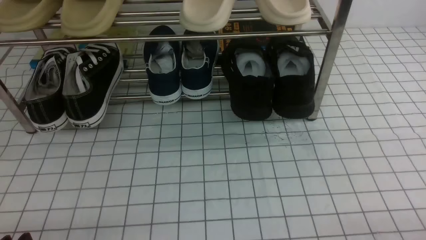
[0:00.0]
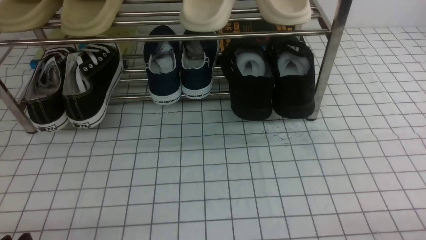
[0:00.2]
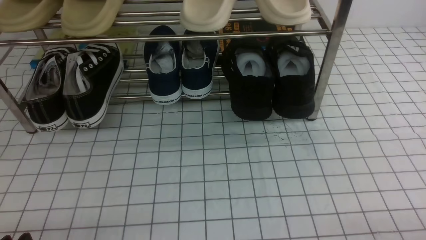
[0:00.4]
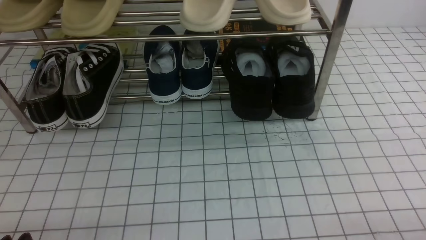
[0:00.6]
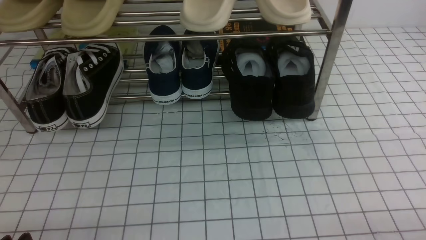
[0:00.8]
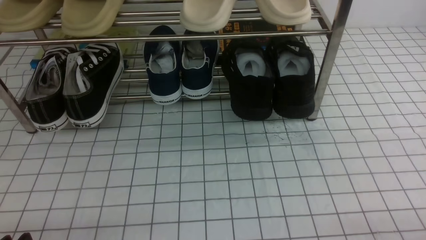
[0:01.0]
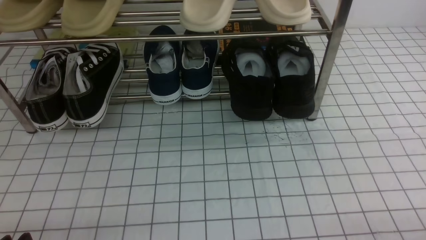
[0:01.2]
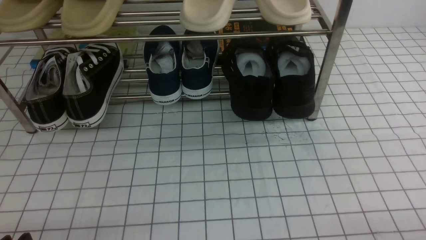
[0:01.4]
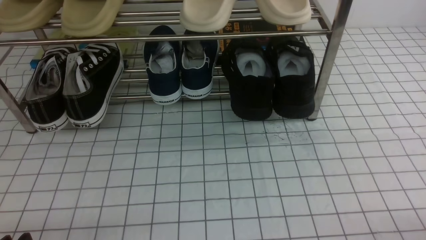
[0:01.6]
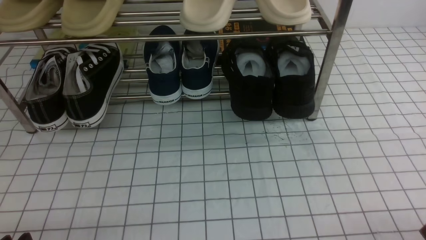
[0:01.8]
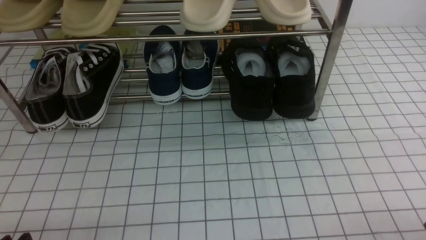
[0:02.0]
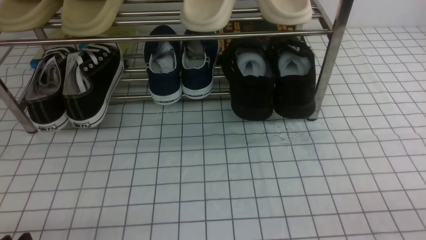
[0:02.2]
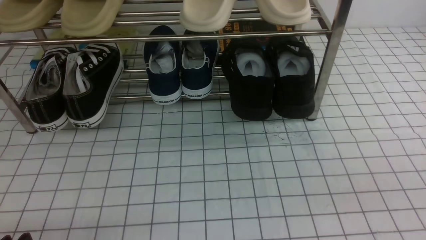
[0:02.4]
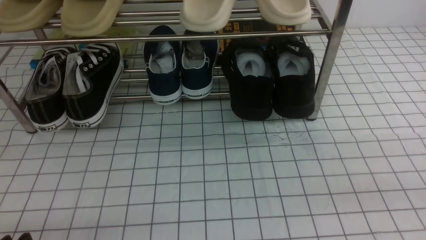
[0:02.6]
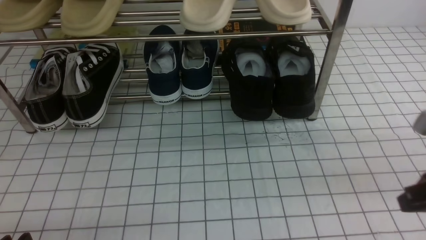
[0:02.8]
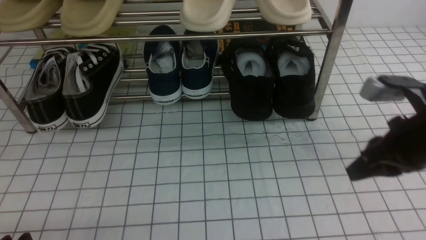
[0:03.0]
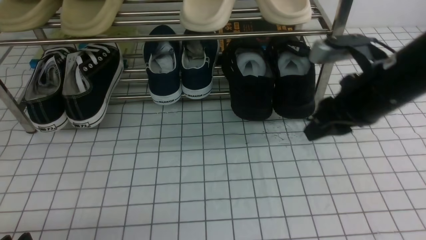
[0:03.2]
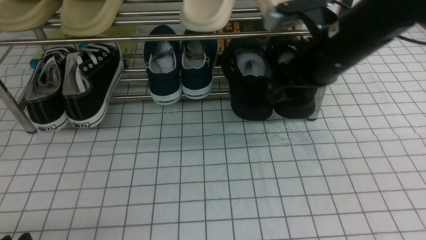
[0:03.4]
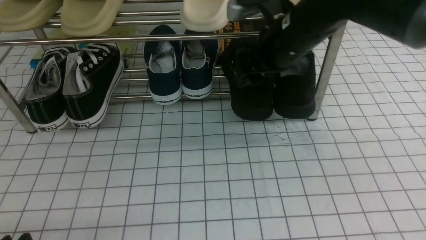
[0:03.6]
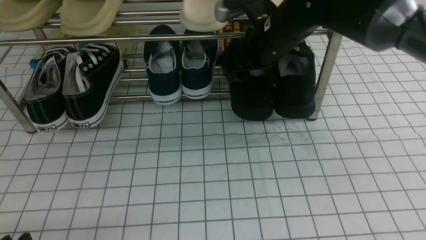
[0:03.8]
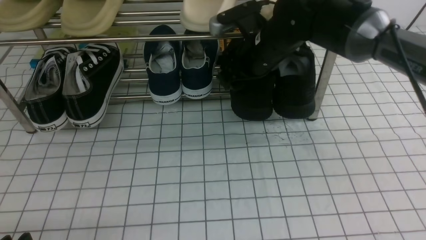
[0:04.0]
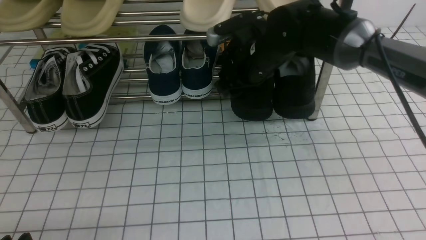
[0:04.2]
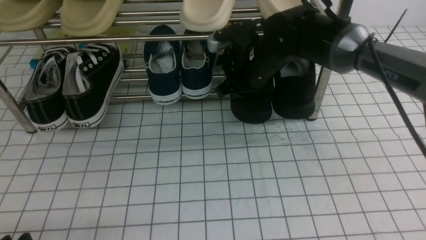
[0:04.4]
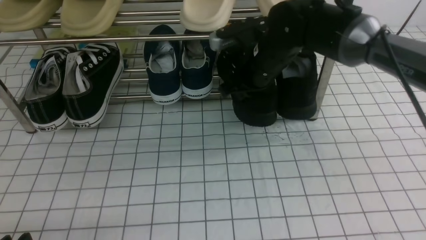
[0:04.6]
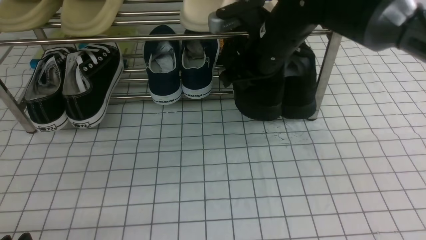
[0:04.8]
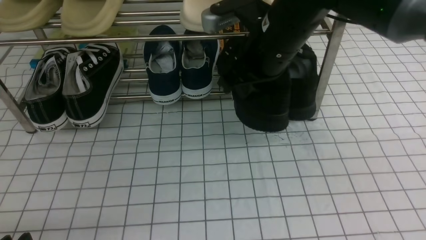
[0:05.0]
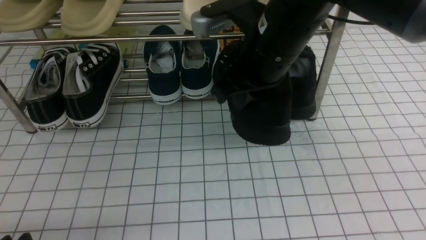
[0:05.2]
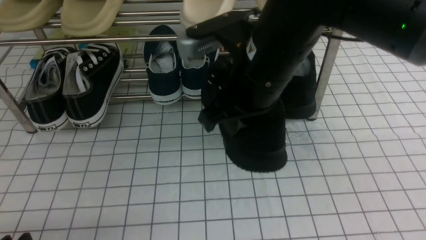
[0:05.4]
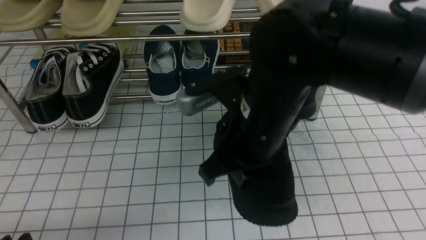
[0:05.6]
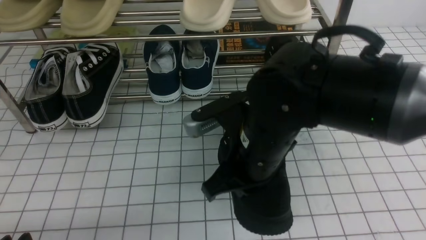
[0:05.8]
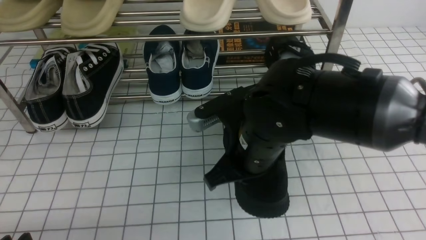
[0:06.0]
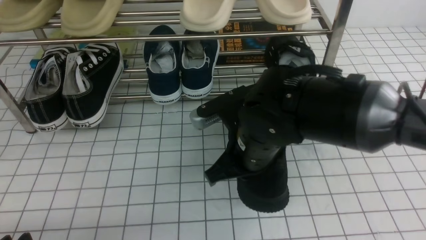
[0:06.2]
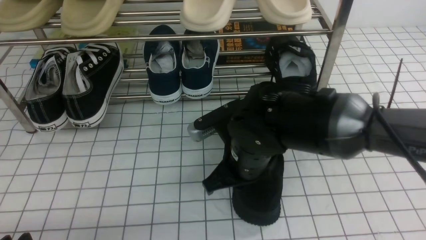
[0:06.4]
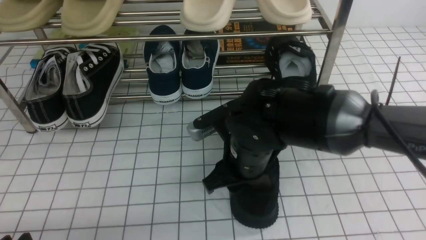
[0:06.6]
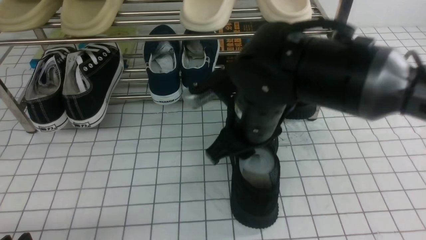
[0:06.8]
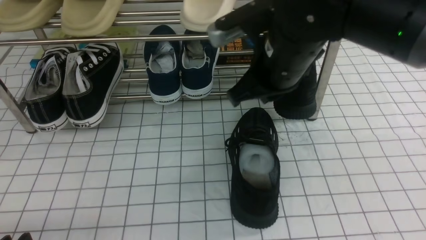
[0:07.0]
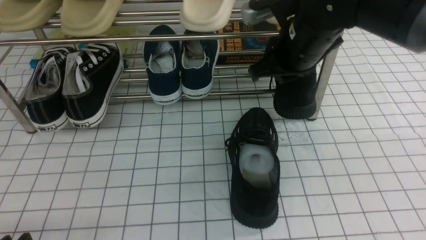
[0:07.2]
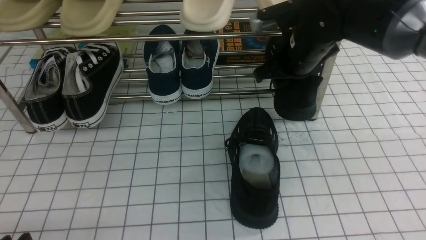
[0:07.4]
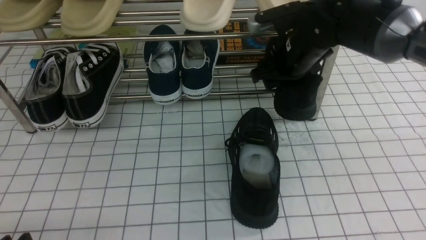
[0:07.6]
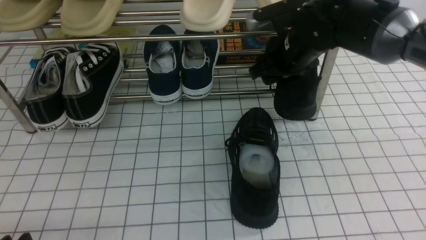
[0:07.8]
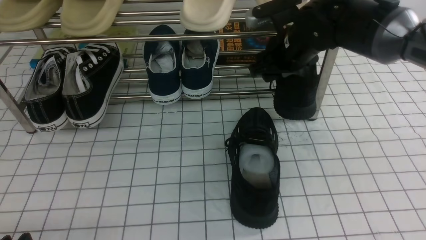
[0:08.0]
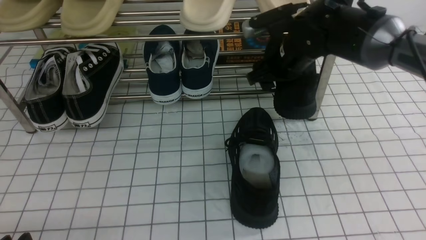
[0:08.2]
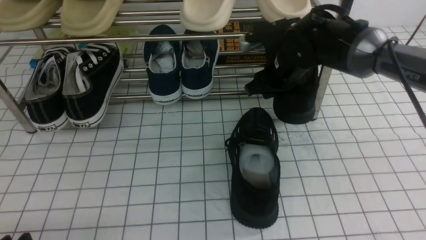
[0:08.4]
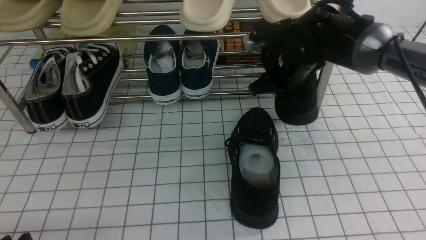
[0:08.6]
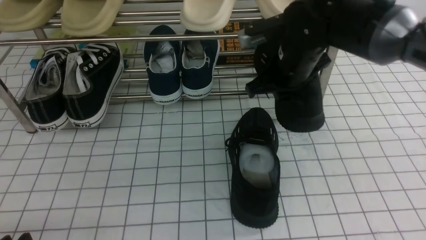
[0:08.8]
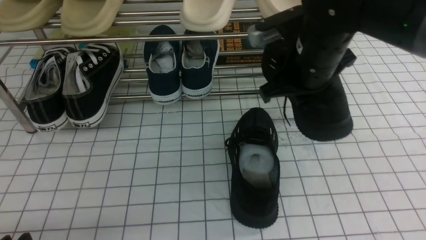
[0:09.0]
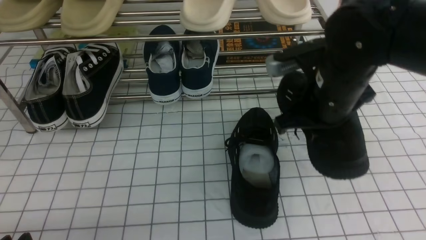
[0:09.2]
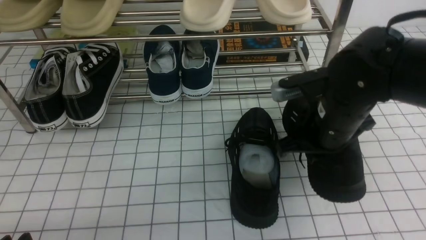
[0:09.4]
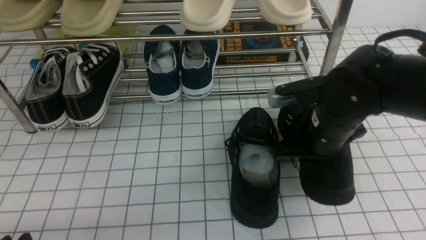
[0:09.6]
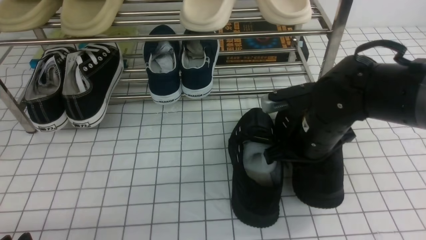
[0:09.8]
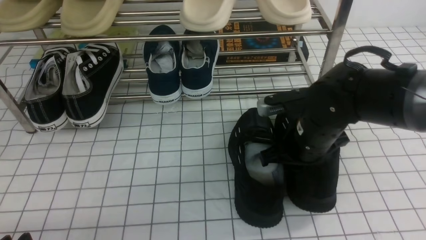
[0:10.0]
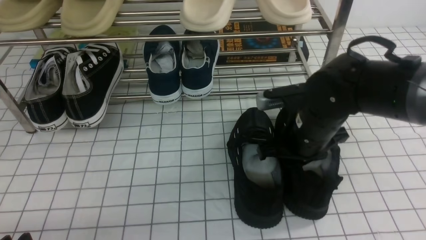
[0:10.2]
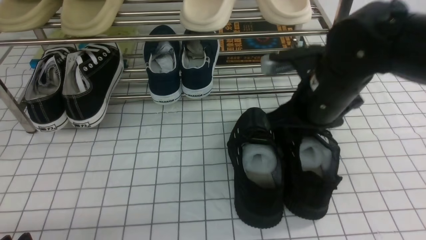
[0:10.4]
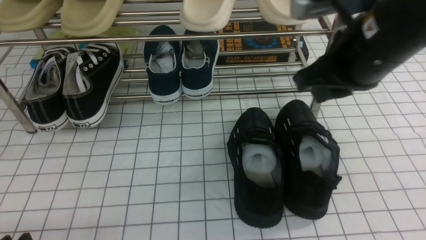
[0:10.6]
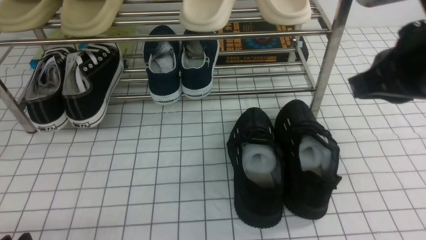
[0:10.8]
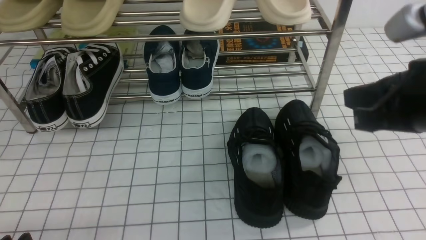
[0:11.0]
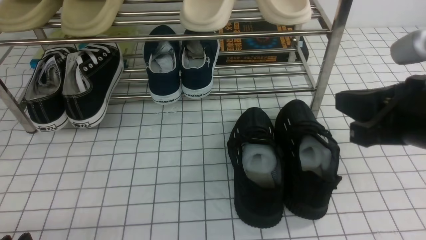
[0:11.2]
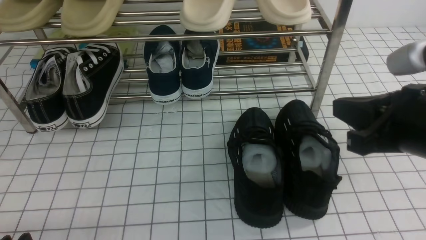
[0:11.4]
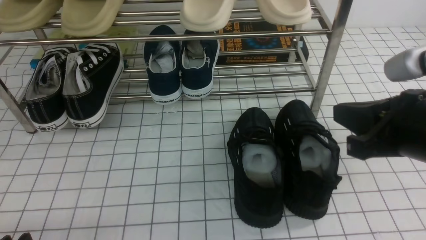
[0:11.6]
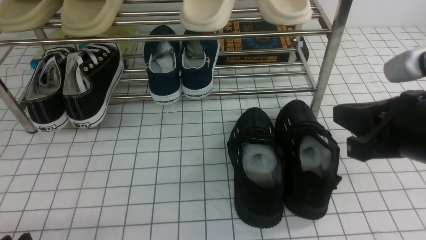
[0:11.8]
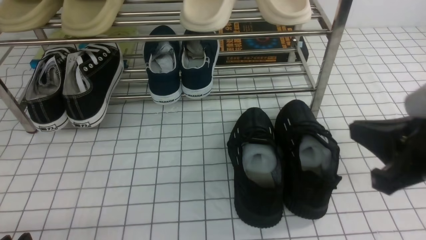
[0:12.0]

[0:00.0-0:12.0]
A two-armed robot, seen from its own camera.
Step, 0:00.0 to 0:04.2: use the right arm to clamp a shoe on the right side of the shoe rack.
Step, 0:04.4 to 0:06.8: use the right arm to take out the clamped shoe from the shoe rack and put it down.
Step, 0:07.0 to 0:08.4: use the right arm to clamp a shoe on the right side of the shoe rack.
Step, 0:08.6 to 0:10.4: use the right arm to take out the clamped shoe from the shoe rack and put it down.
0:01.6 to 0:03.0: The right gripper moves forward and upward, about 20 cm.
0:03.0 to 0:04.4: The right gripper shifts approximately 25 cm forward and to the left, and opens, then closes again.
0:04.4 to 0:06.0: The right gripper travels backward by roughly 15 cm.
0:06.0 to 0:07.6: The right gripper travels forward and to the right by about 20 cm, and opens.
0:07.6 to 0:09.0: The right gripper shifts roughly 10 cm backward, and closes.
0:09.0 to 0:10.4: The right gripper moves roughly 10 cm downward and comes back, and opens.
0:10.4 to 0:12.0: The right gripper travels backward and to the right by some 20 cm, and closes.

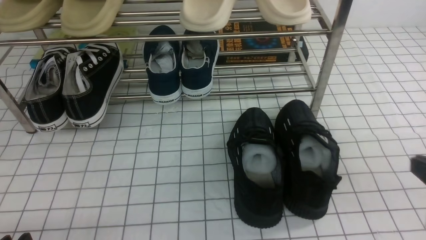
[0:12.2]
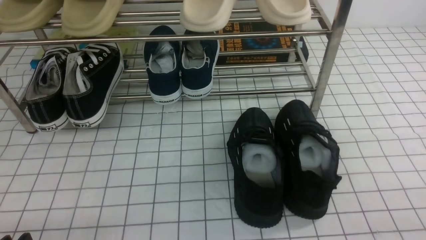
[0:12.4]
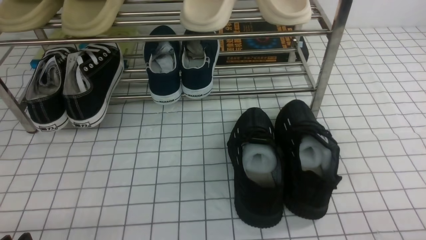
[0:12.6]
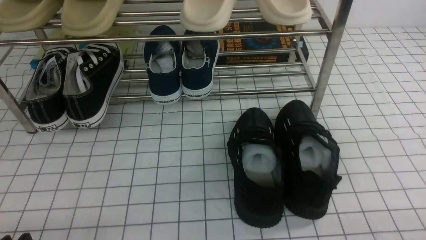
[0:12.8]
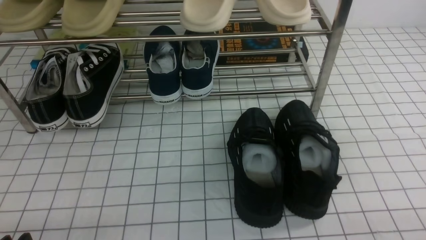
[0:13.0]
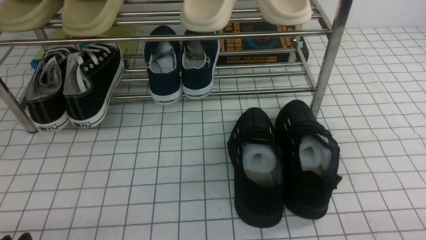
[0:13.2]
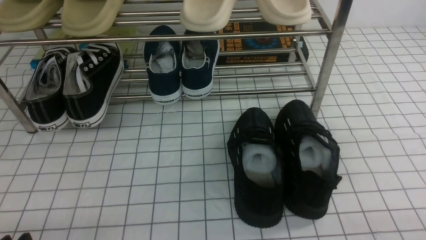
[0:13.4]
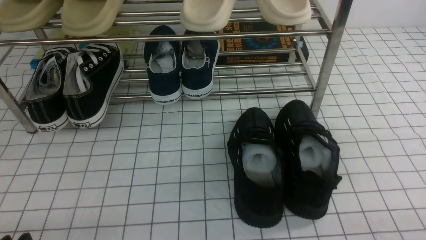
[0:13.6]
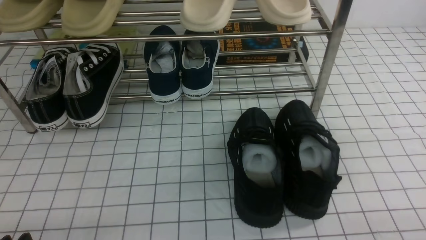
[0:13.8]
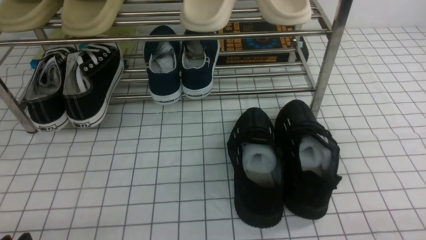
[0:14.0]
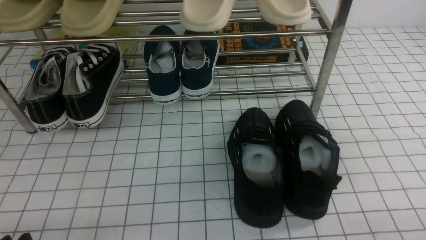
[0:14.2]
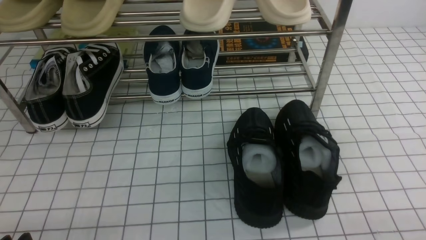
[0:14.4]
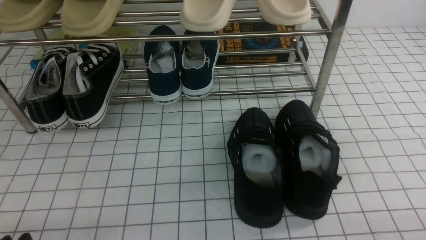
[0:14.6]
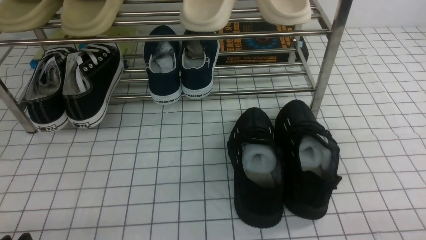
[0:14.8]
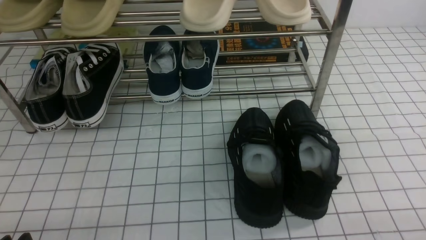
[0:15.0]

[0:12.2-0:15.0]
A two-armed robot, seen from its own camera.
0:12.2 to 0:13.6: The right gripper shifts some 10 cm downward and backward.
0:13.6 to 0:15.0: Neither gripper changes place.
